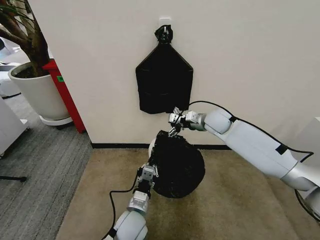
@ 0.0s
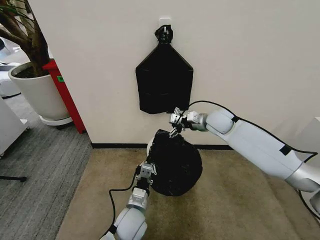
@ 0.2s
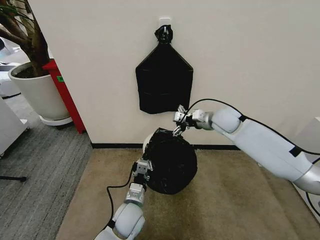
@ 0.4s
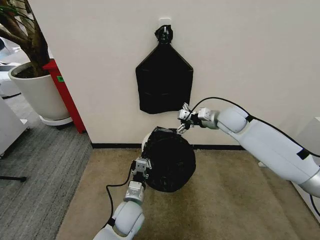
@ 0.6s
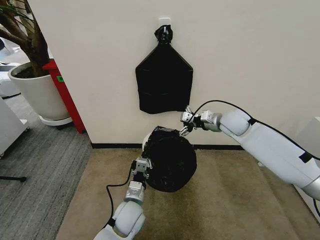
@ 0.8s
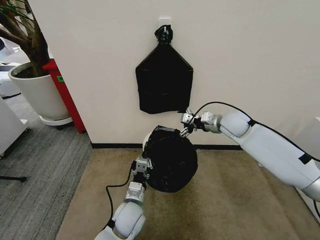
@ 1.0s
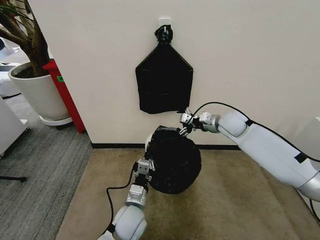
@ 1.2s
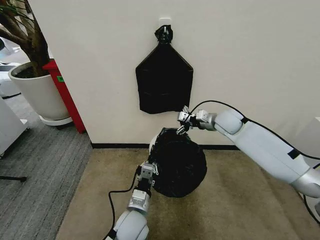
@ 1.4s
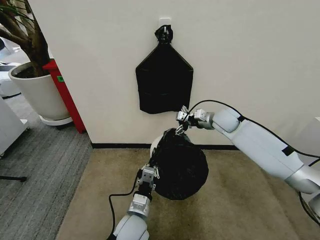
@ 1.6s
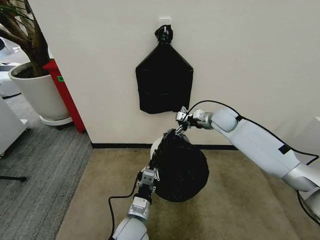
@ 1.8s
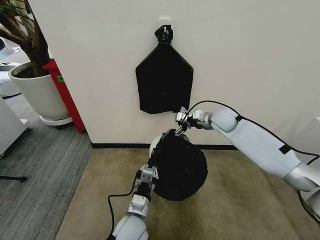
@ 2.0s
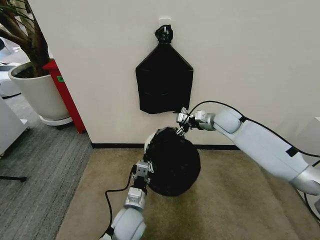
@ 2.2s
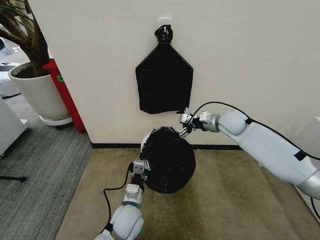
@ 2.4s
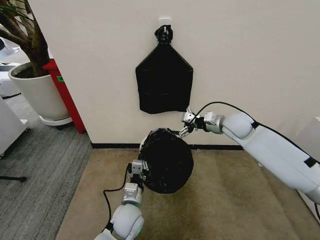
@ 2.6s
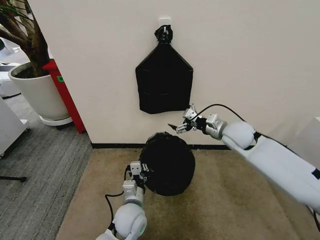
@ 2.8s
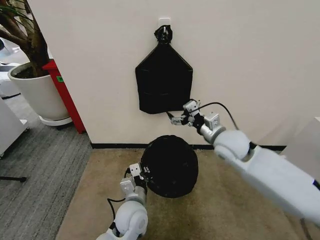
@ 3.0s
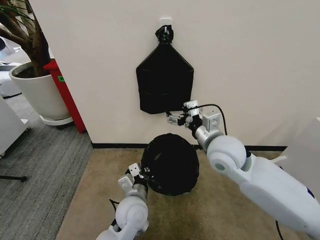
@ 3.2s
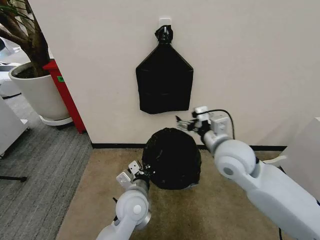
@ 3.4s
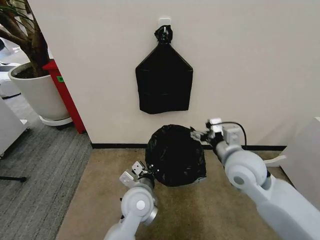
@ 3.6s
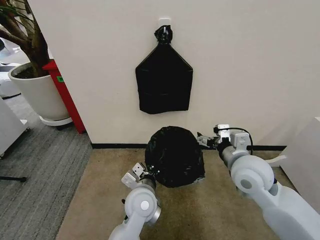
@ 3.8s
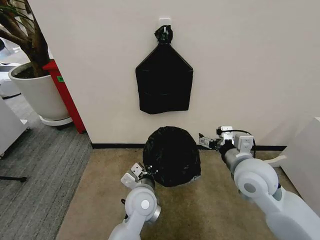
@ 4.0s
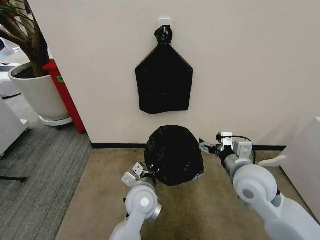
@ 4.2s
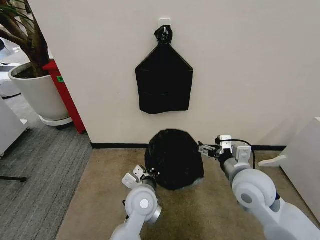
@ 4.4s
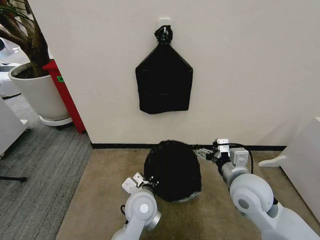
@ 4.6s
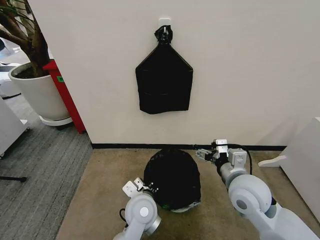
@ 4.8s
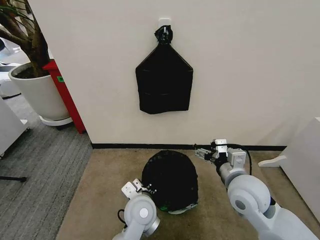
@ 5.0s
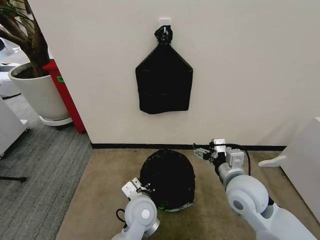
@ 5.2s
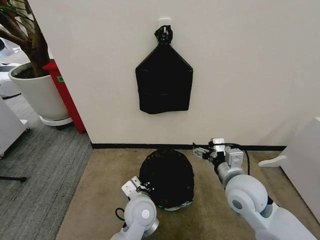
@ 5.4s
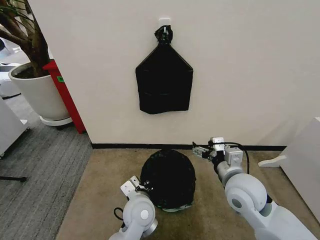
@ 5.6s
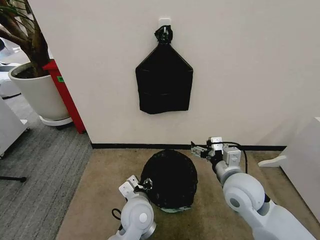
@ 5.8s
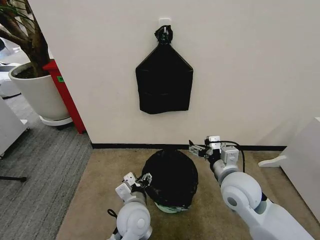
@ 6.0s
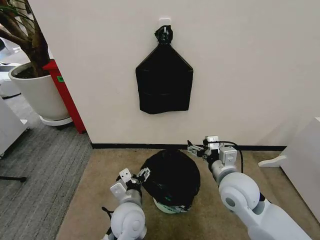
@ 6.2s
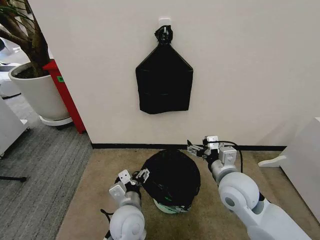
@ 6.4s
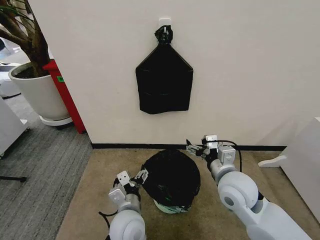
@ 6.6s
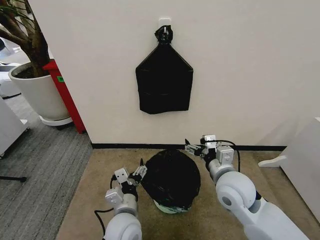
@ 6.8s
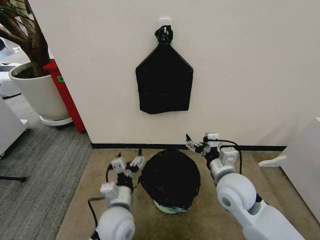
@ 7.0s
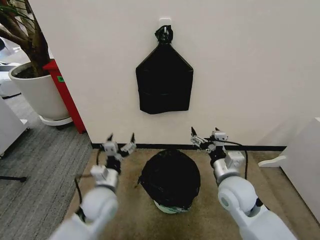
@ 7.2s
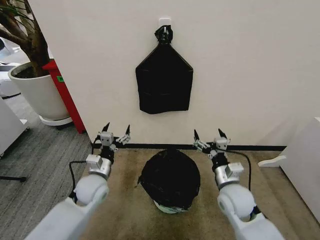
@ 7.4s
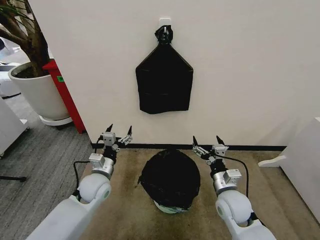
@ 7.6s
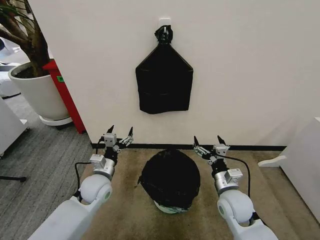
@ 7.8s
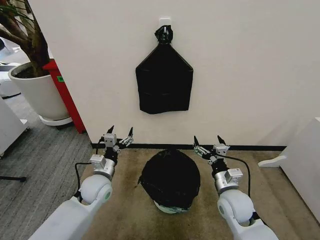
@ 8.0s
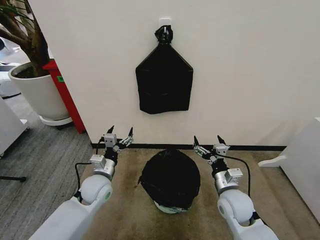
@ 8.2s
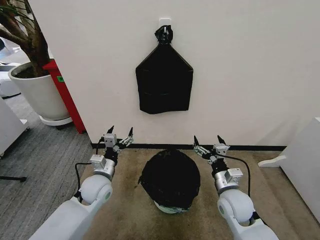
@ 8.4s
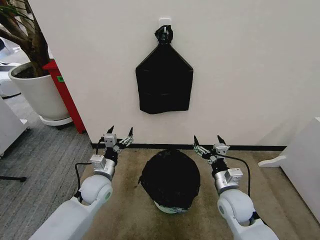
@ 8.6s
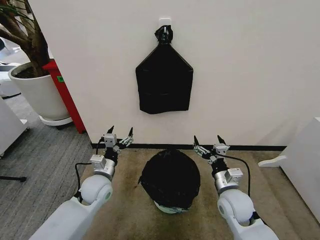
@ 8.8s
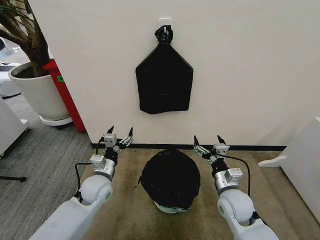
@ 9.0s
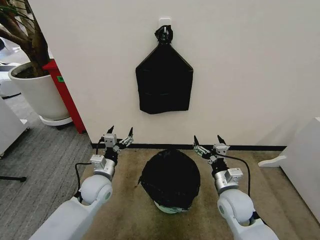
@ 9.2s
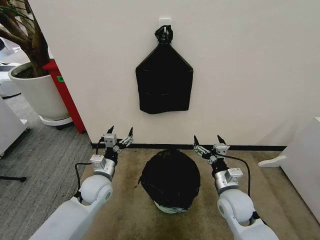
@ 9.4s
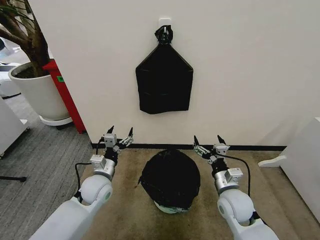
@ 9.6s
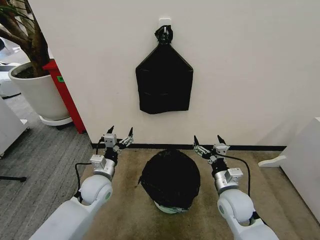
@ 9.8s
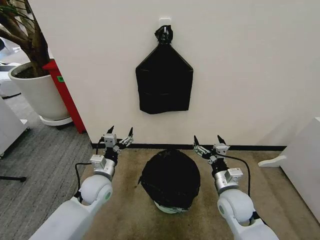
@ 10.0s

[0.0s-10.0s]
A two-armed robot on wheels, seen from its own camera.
Task of the whole recording: Place the garbage bag over the trash bin.
0.0s to 1.4s: The grippers stay close to where they were, moving slightly.
1.4s to 2.8s: The right gripper shifts roughly 10 cm backward.
2.8s to 4.2s: The right gripper is displaced backward by roughly 15 cm. The left gripper travels upward by about 5 cm.
4.2s to 5.8s: The left gripper opens up.
5.8s to 7.2s: The left gripper shifts roughly 10 cm to the left, and opens its fingers.
7.2s to 8.6s: The right gripper heads downward, covering about 10 cm. The left gripper is displaced forward by about 5 cm.
8.6s to 10.0s: Both grippers stay about where they are.
